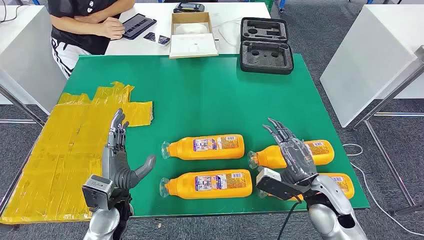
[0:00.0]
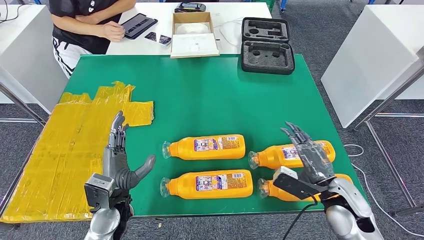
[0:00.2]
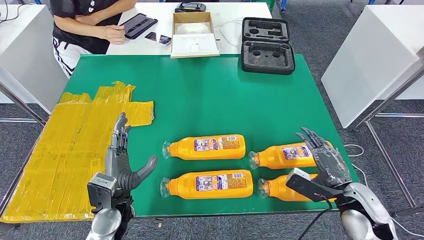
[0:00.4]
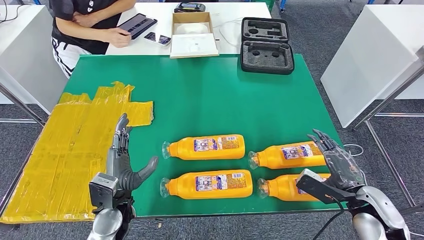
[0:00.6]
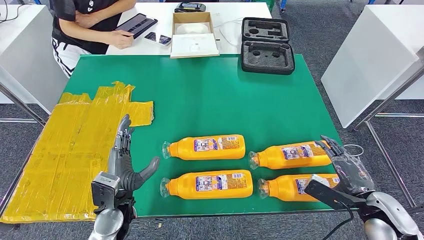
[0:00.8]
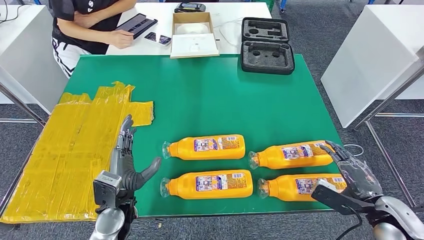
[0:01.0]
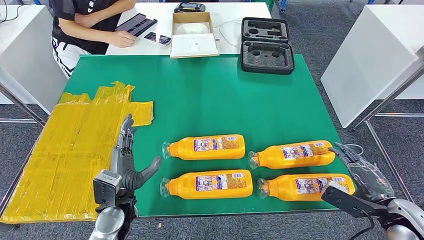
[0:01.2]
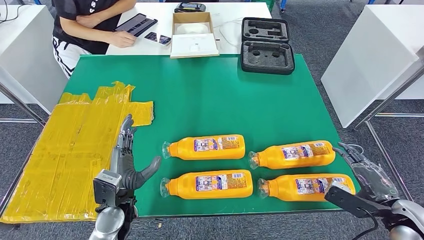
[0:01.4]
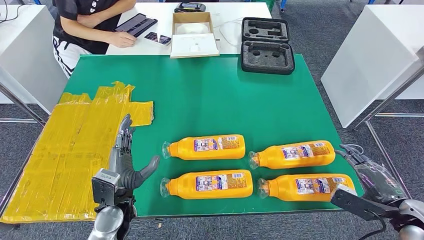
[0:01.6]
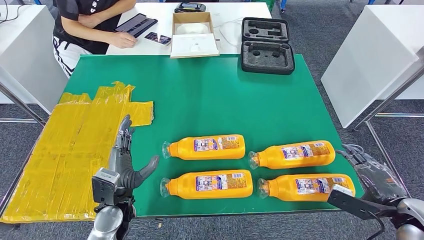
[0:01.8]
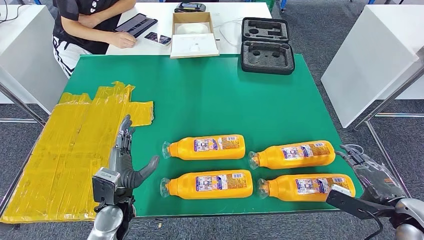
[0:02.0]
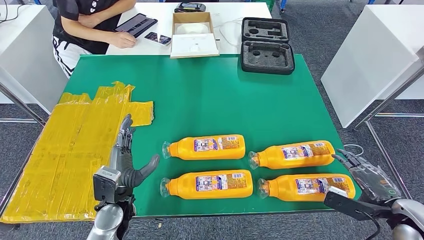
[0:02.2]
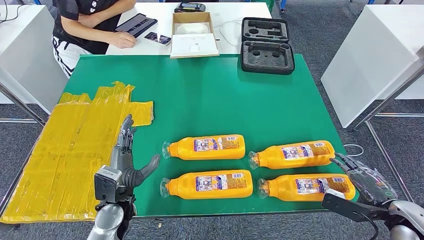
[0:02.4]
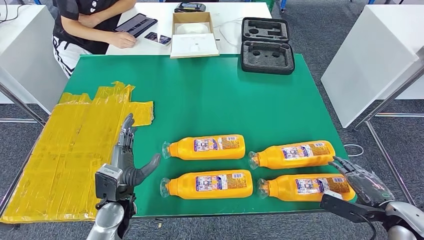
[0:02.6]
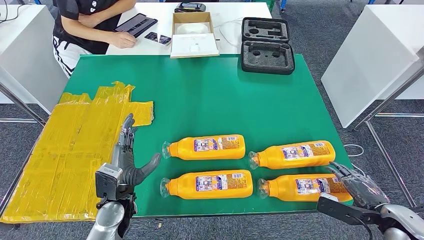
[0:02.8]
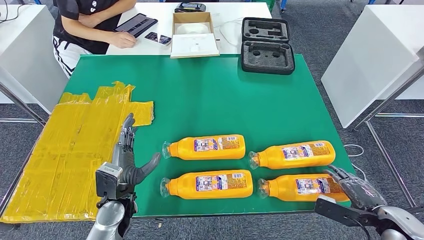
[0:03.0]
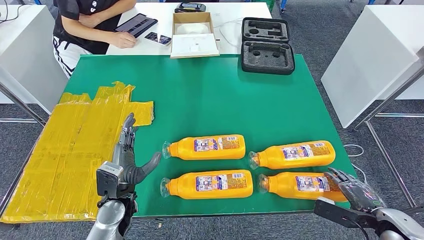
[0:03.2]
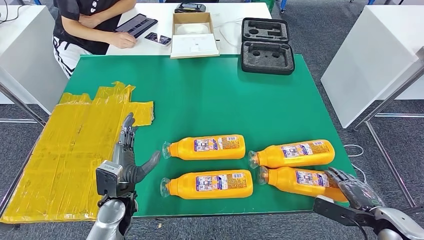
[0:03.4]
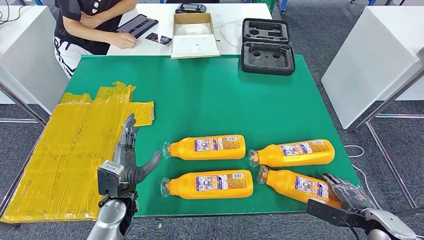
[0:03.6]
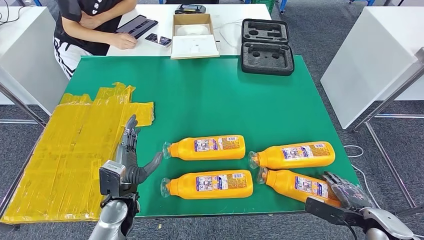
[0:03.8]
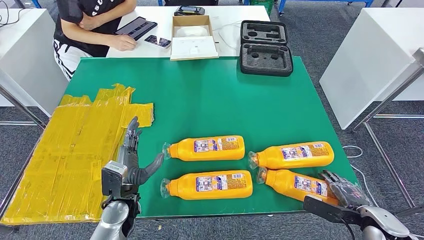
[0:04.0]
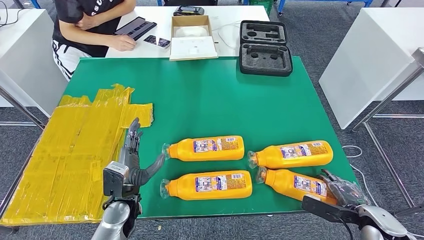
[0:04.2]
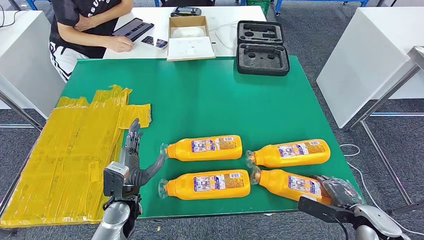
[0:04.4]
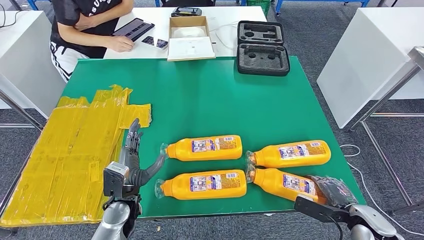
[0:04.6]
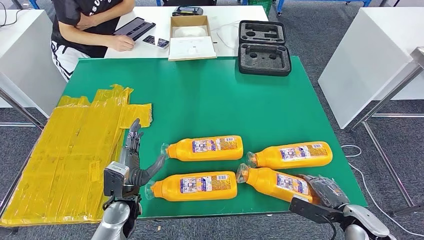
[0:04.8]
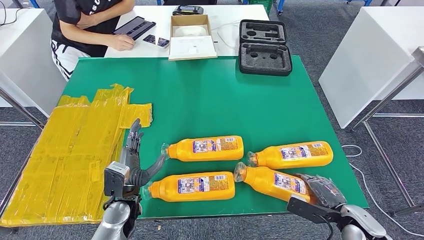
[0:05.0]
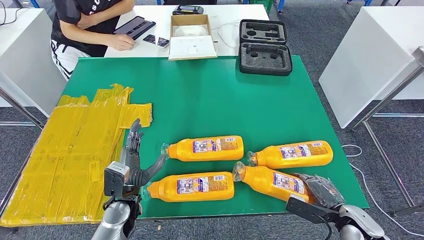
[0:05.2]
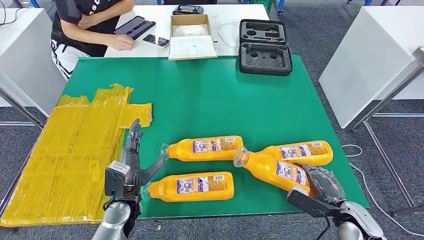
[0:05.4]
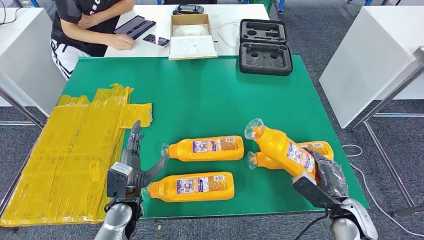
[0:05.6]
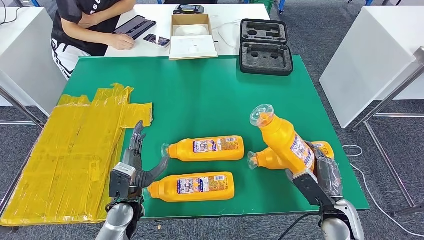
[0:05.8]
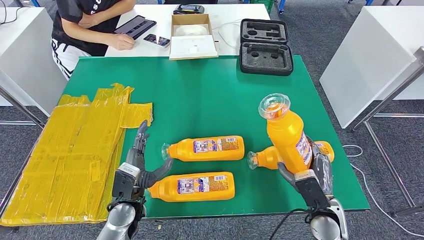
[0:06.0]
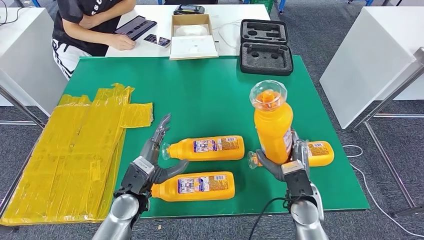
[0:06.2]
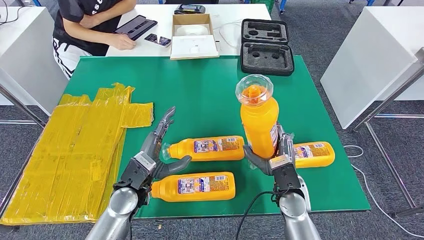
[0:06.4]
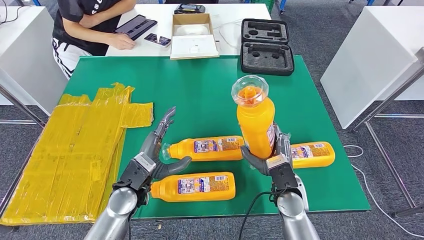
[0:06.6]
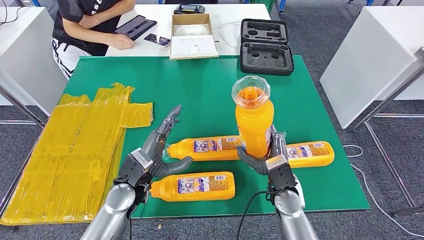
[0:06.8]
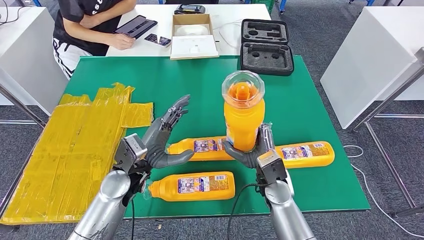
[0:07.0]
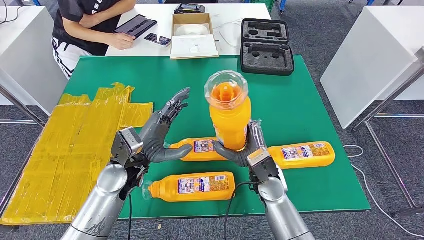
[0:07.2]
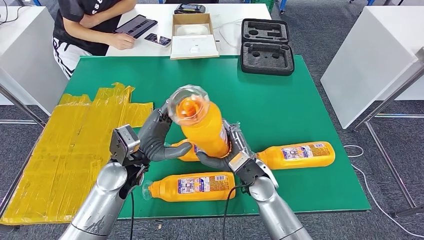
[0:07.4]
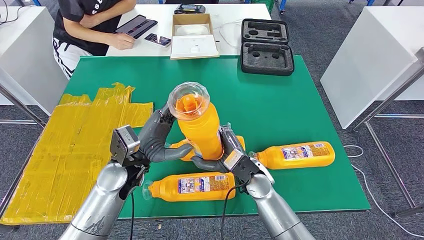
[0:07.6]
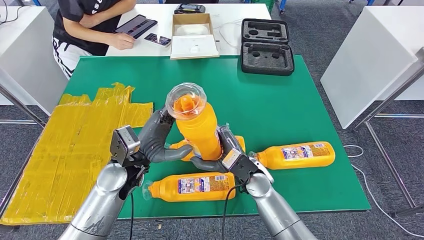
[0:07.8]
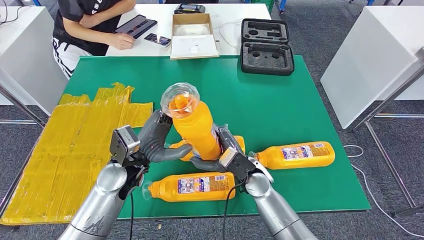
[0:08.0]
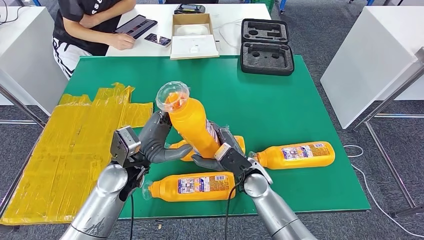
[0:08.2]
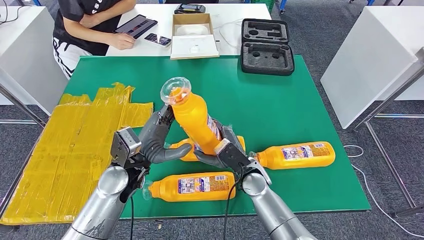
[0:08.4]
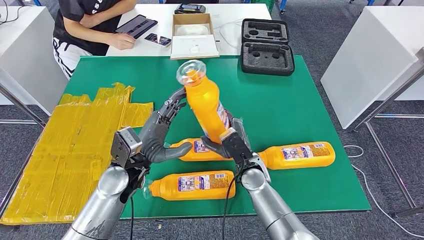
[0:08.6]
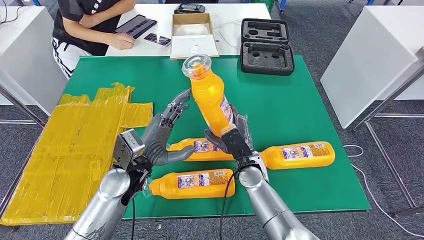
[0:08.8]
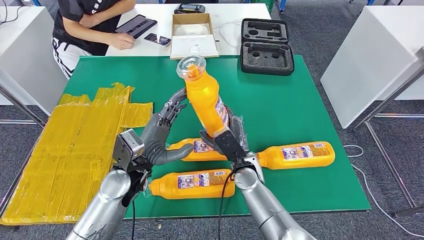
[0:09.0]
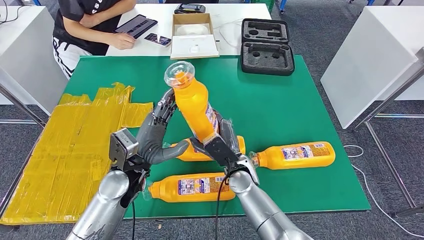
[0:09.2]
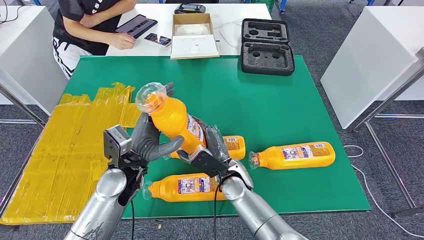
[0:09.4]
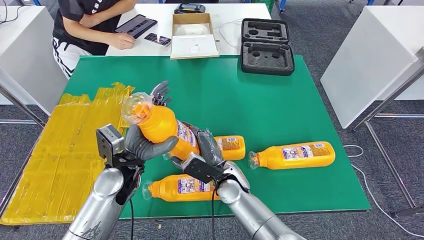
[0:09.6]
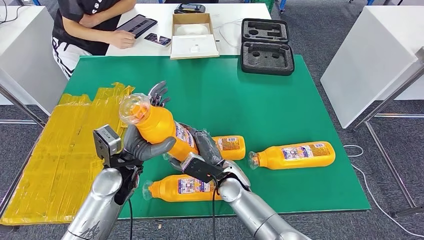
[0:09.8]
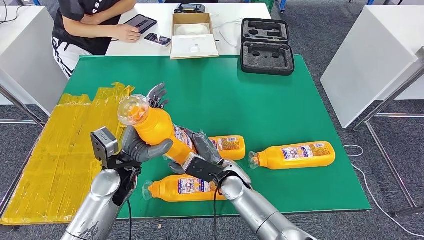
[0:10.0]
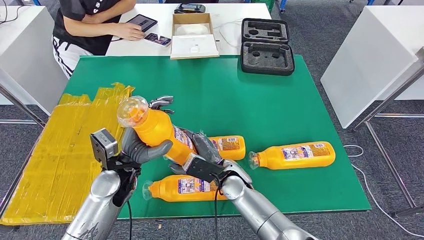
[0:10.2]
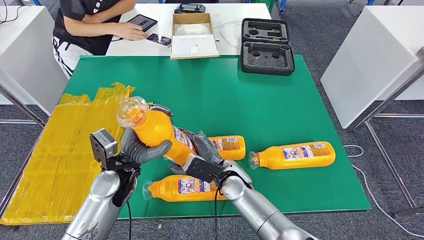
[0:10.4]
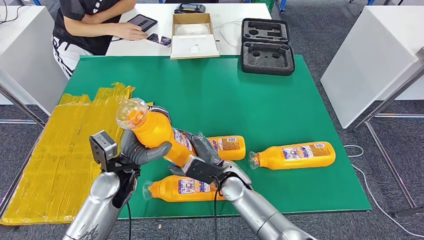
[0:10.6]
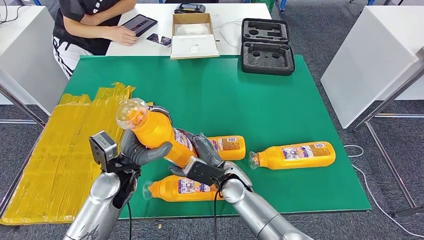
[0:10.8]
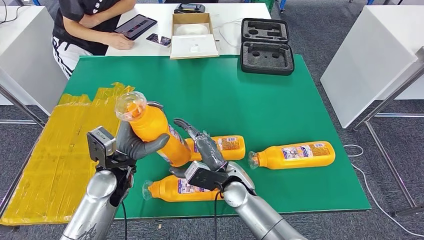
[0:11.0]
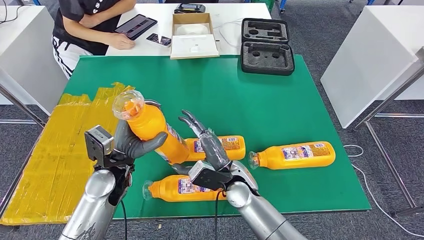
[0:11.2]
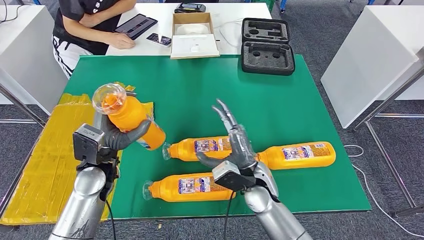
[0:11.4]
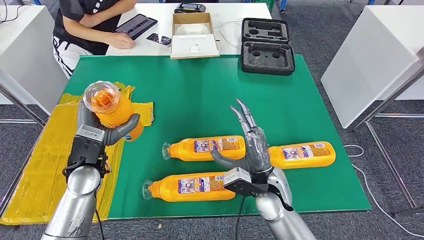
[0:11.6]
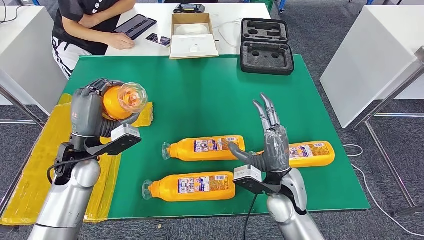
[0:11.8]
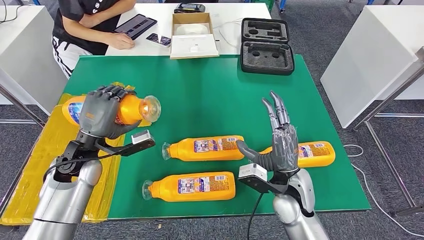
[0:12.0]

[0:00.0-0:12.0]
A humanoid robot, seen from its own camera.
Step, 0:00.0 to 0:06.4: Take the fast-moving consumer goods bottle from the table.
0:01.6 to 0:03.0: The hands move only a little.

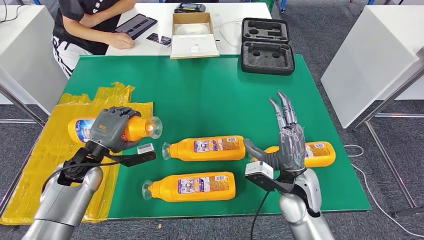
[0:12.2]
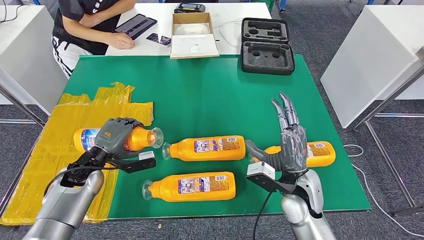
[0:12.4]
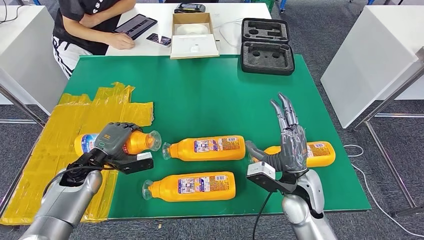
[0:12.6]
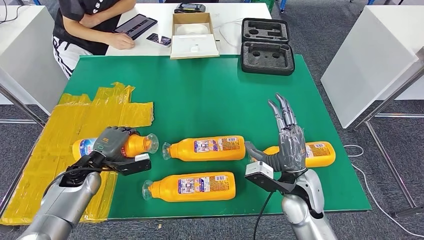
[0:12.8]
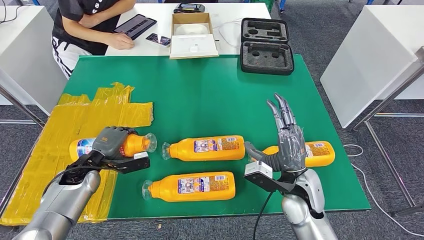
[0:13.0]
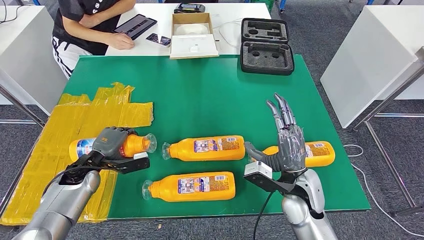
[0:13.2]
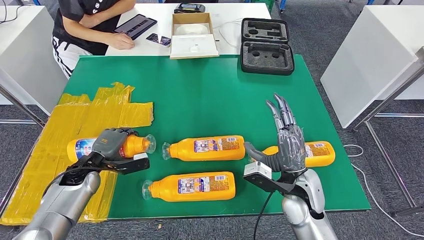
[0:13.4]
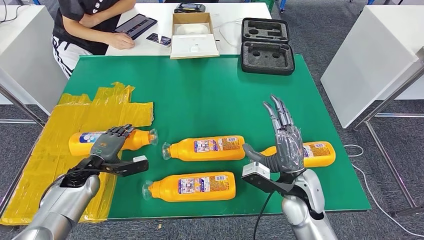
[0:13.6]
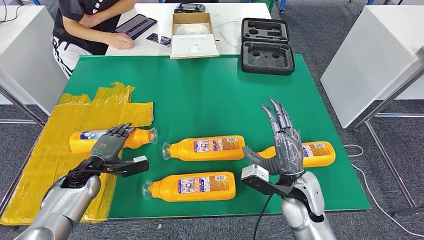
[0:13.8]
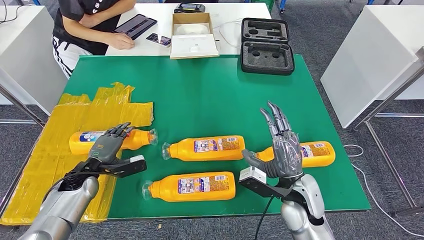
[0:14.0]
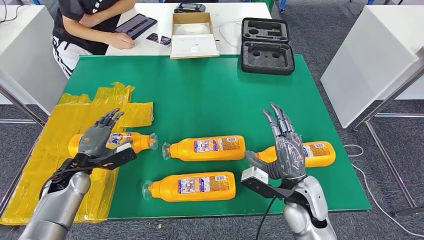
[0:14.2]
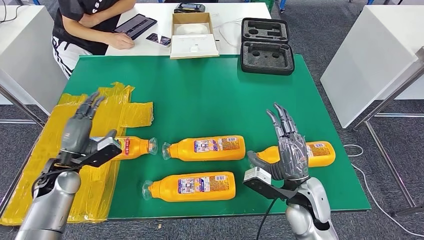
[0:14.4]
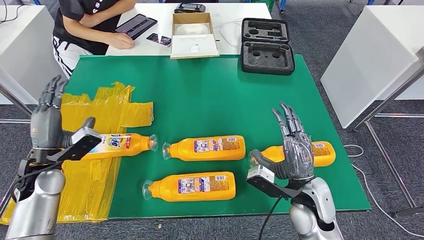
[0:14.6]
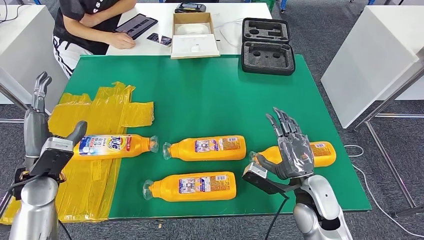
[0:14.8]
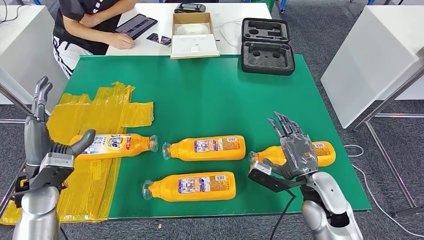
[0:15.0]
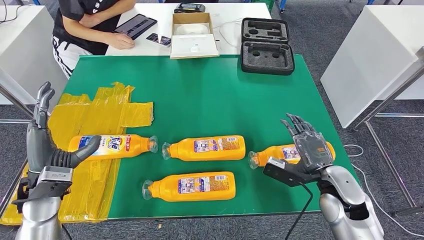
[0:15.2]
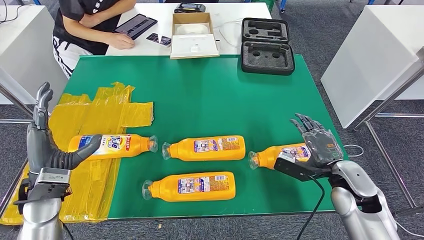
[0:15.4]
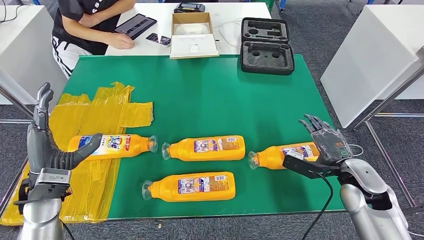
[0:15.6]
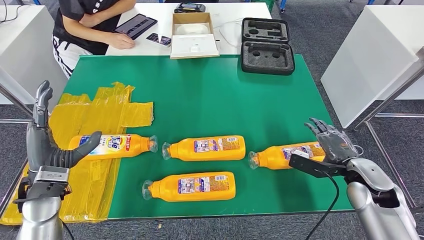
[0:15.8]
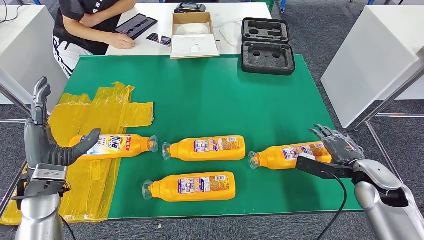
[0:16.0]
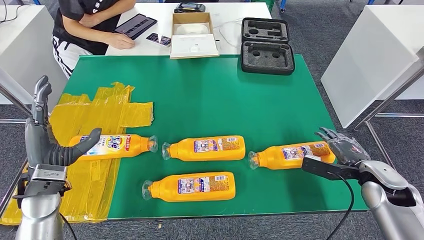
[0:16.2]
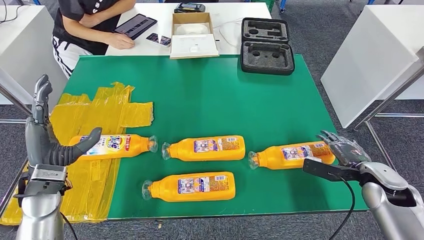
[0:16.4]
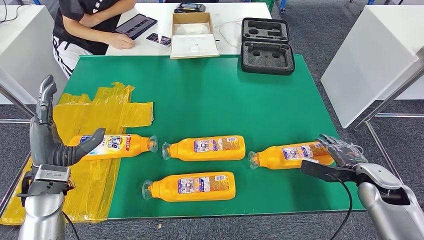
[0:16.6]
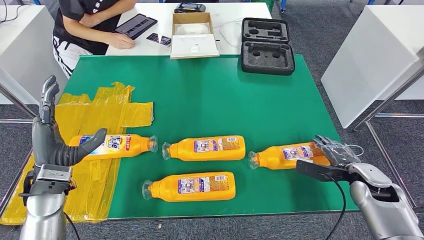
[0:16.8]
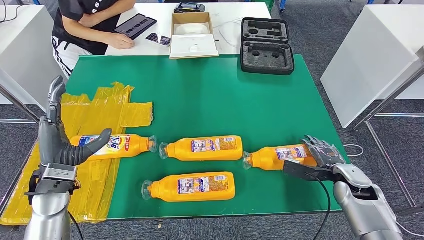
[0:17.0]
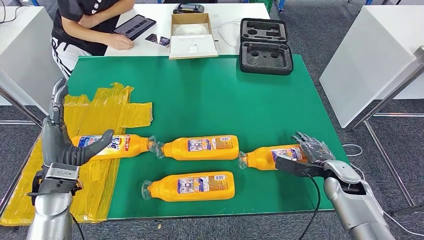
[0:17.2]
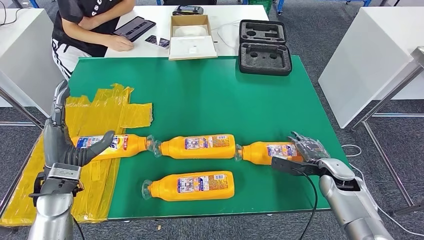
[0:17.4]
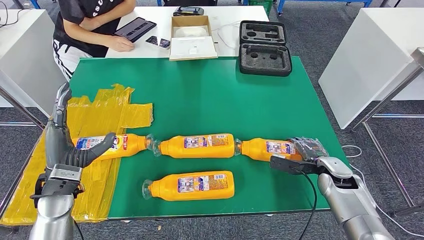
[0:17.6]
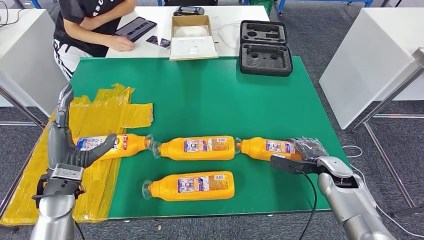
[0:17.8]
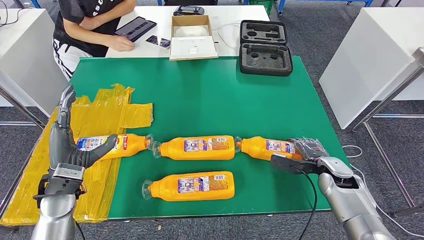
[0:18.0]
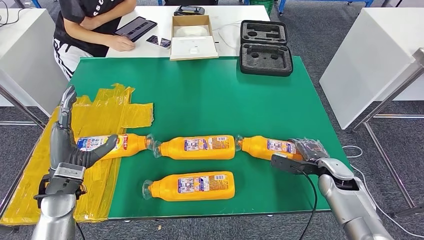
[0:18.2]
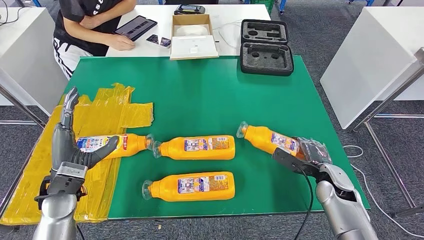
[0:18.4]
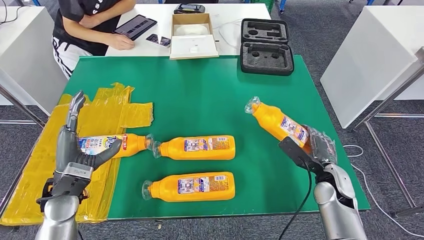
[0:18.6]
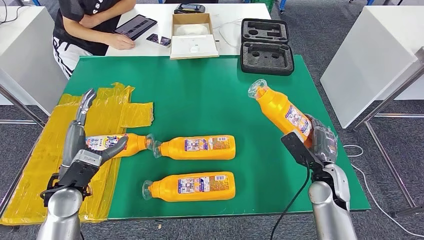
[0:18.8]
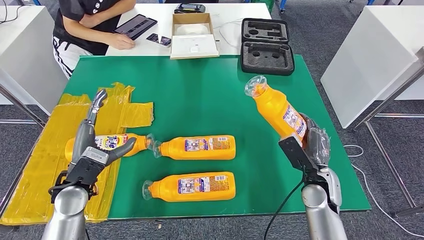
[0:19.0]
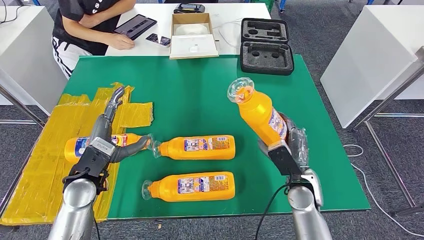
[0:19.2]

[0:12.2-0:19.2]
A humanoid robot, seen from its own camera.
0:12.2 to 0:13.6: The left hand heads downward, covering some 5 cm.
0:13.6 to 0:15.0: The left hand is displaced upward and backward by approximately 15 cm. The right hand shifts by approximately 5 cm.
0:15.0 to 0:16.4: The right hand travels to the right by about 15 cm.
